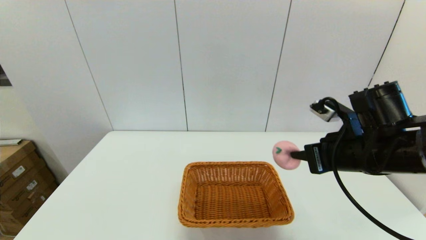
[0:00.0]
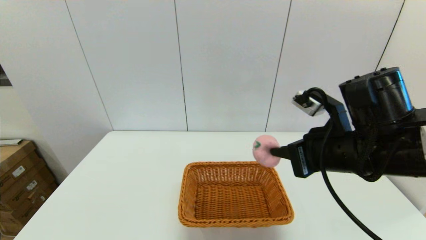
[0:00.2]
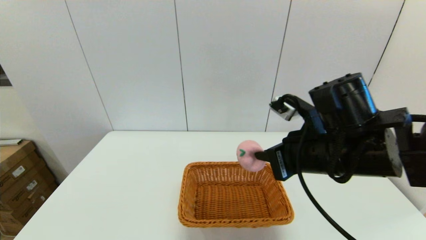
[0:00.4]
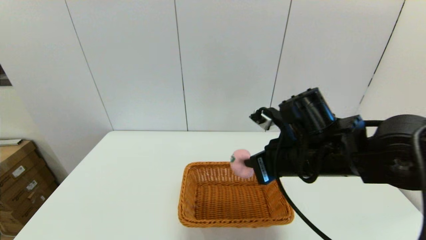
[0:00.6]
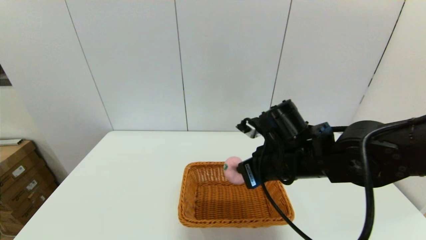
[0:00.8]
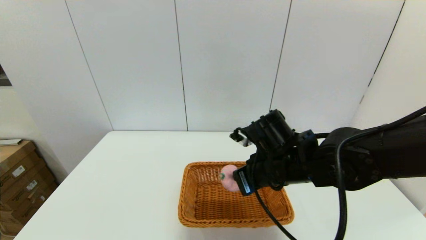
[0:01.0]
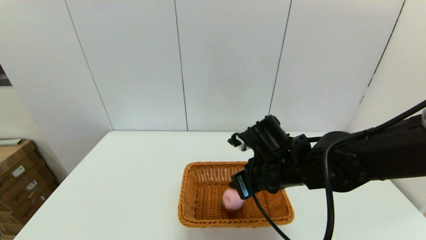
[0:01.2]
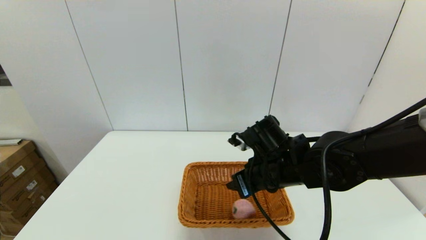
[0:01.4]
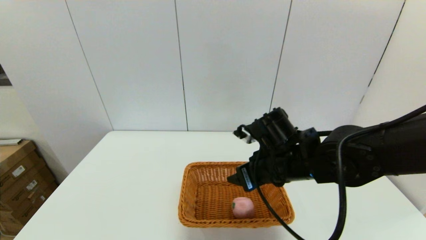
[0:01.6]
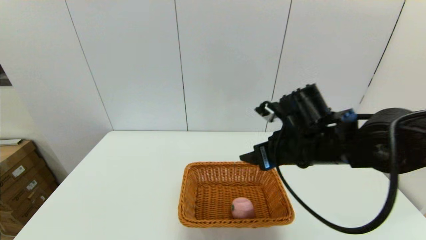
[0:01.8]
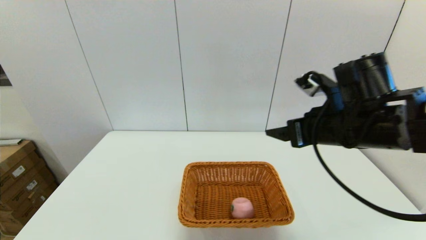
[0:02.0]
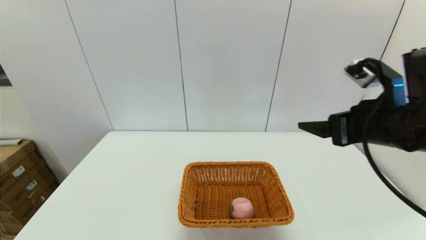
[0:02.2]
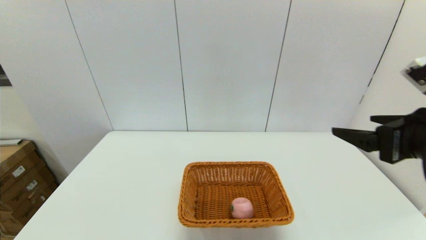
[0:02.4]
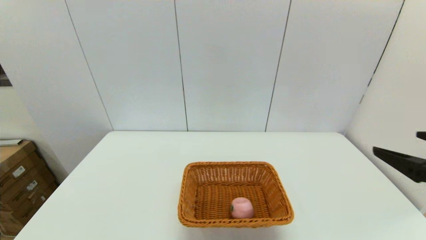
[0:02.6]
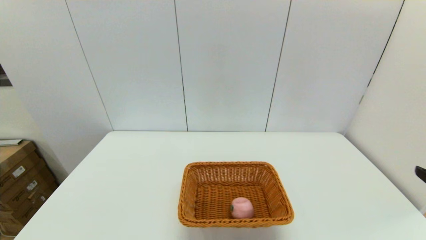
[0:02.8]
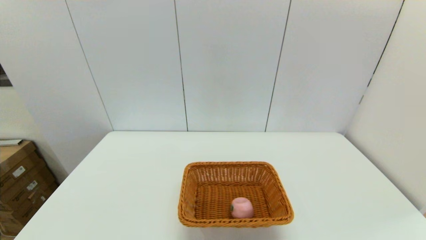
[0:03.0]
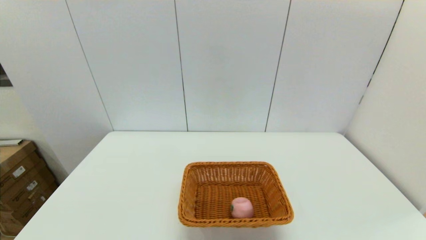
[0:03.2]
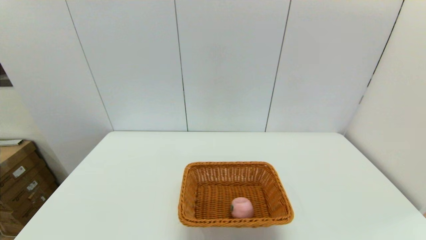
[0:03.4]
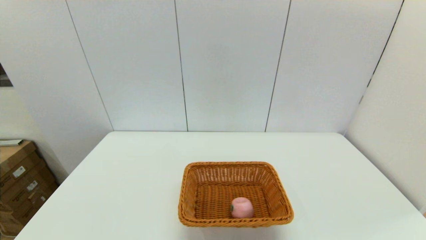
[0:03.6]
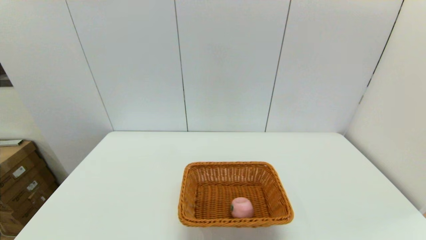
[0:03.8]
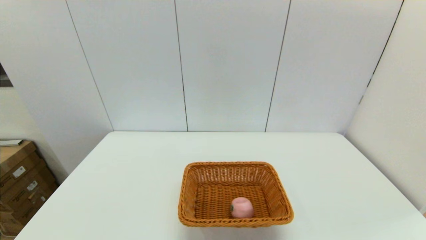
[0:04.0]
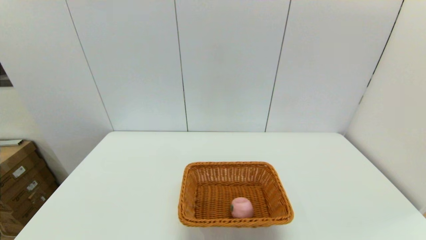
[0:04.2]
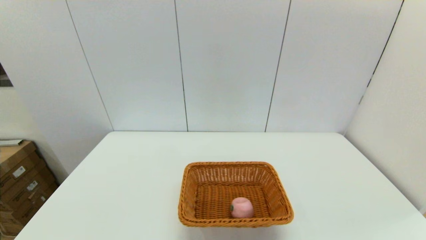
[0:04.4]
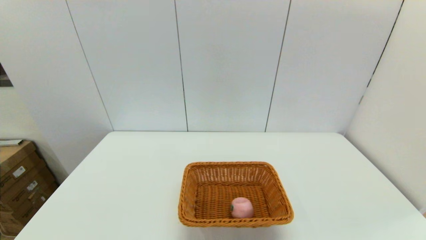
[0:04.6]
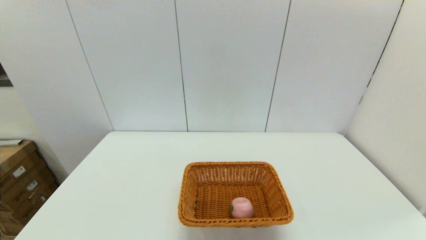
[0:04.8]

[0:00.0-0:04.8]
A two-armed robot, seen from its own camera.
Step, 0:00.0 to 0:01.2: Place the peach into the light basket with the right gripper.
0:00.0 to 0:01.6: The right gripper heads to the left and downward, covering approximately 10 cm, and opens up.
0:01.6 to 0:03.2: The right gripper shifts about 35 cm backward and to the right.

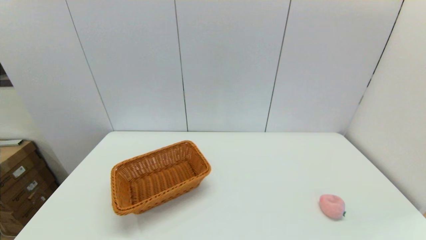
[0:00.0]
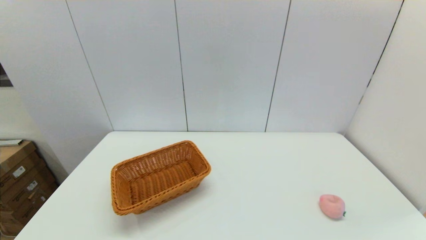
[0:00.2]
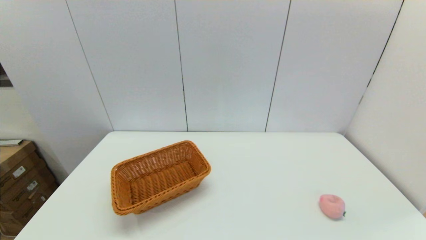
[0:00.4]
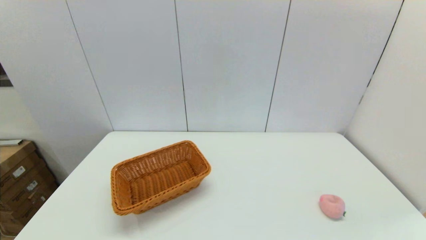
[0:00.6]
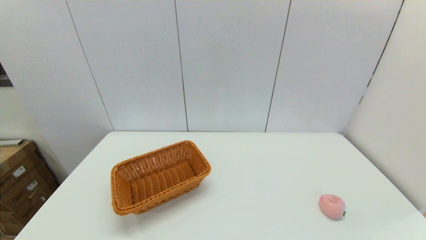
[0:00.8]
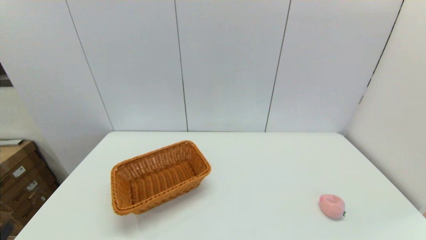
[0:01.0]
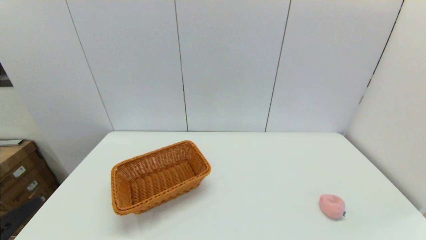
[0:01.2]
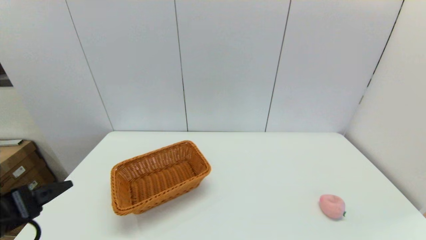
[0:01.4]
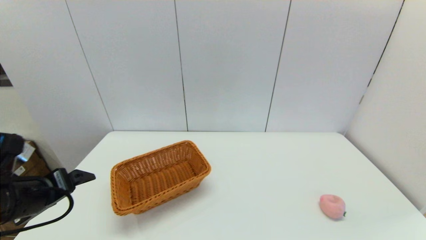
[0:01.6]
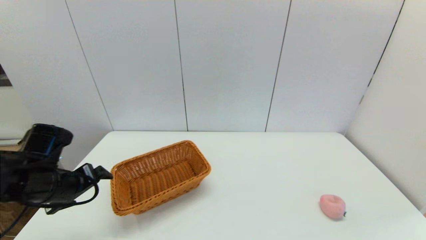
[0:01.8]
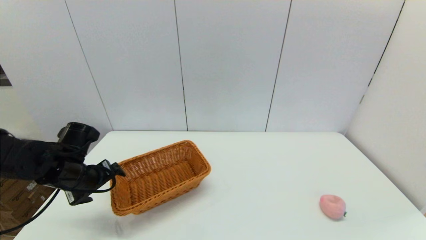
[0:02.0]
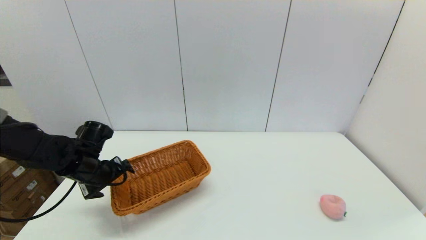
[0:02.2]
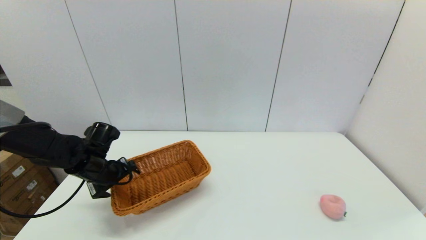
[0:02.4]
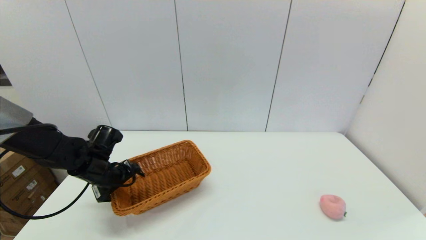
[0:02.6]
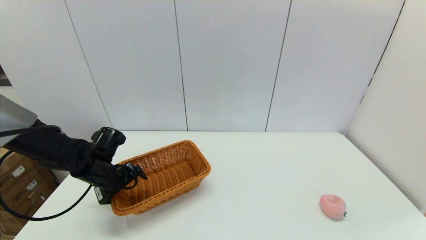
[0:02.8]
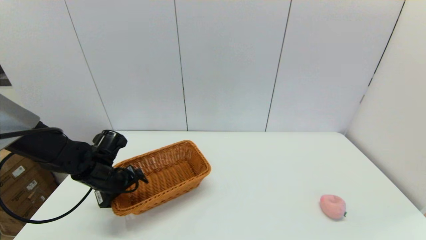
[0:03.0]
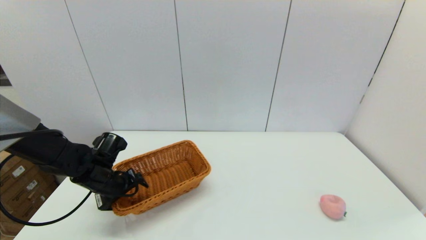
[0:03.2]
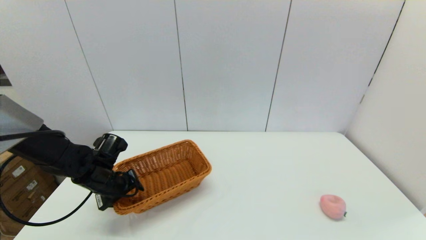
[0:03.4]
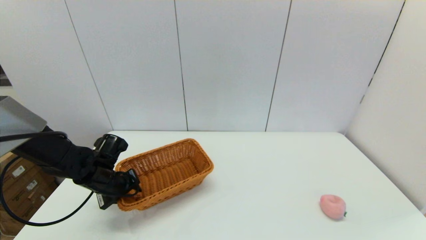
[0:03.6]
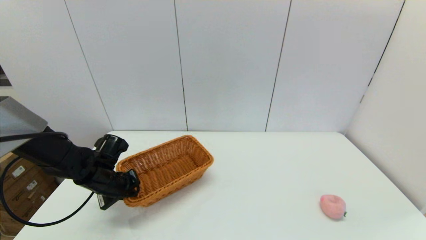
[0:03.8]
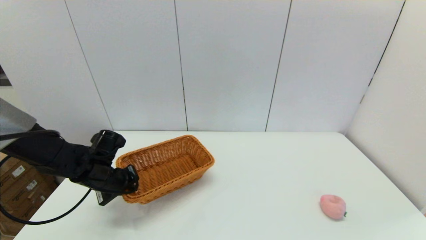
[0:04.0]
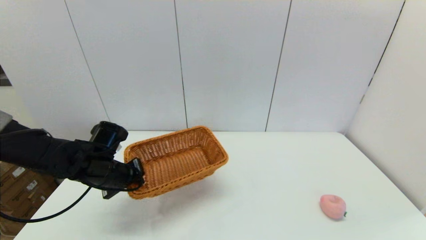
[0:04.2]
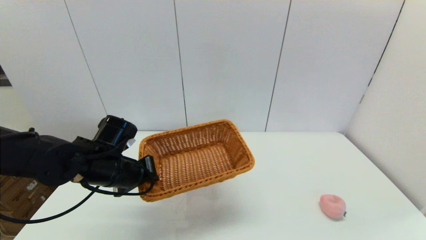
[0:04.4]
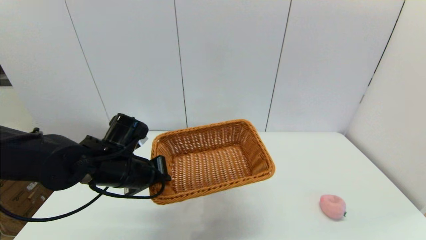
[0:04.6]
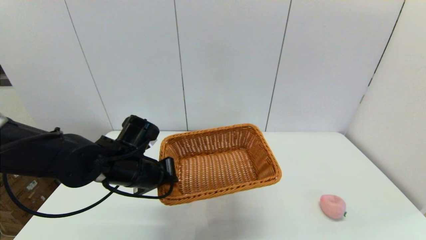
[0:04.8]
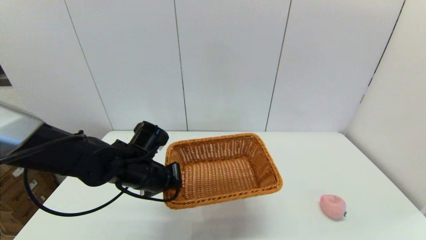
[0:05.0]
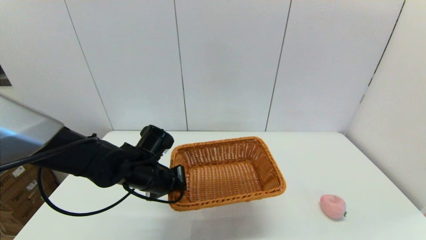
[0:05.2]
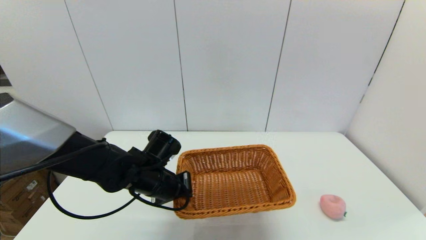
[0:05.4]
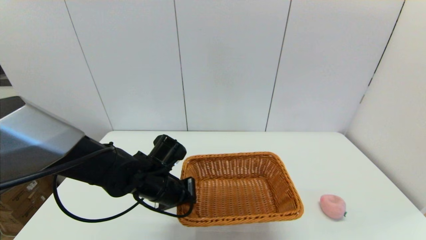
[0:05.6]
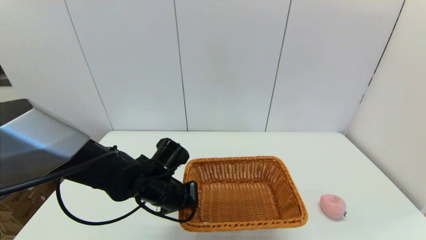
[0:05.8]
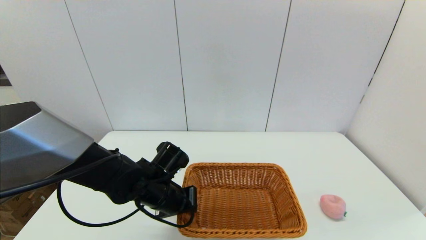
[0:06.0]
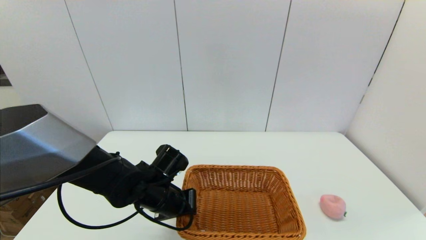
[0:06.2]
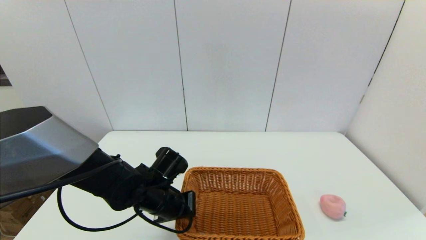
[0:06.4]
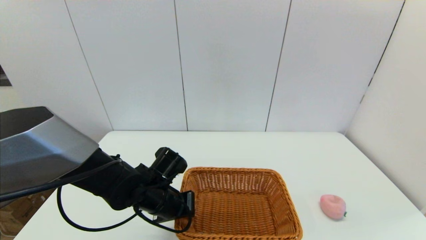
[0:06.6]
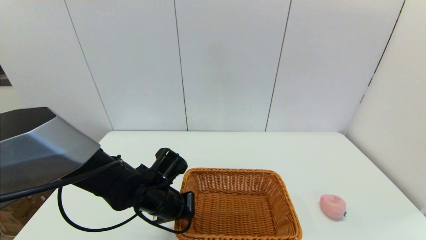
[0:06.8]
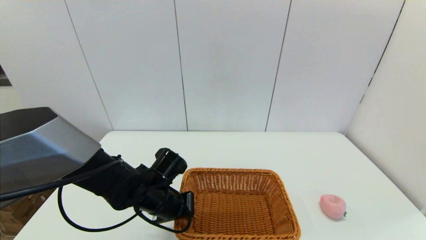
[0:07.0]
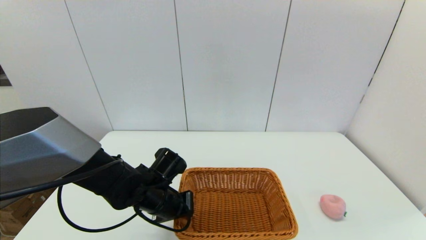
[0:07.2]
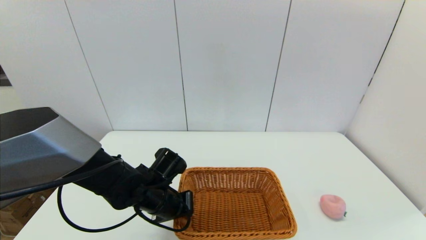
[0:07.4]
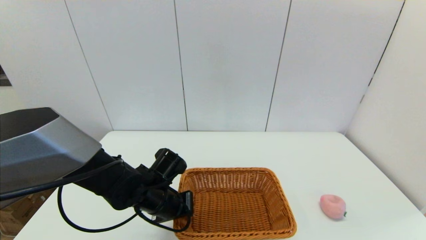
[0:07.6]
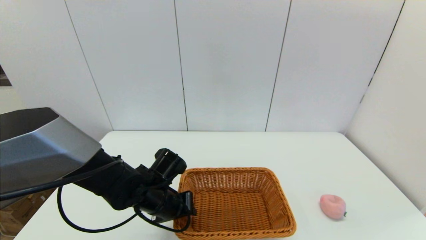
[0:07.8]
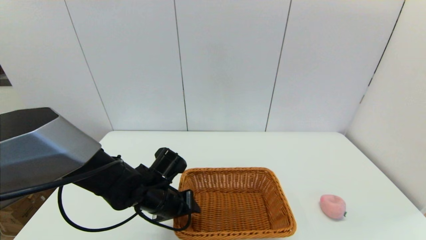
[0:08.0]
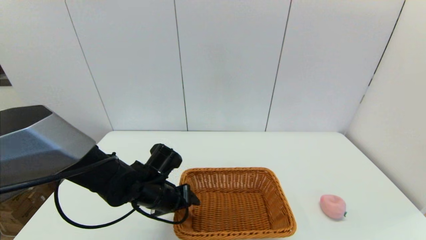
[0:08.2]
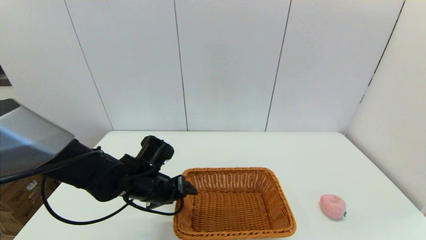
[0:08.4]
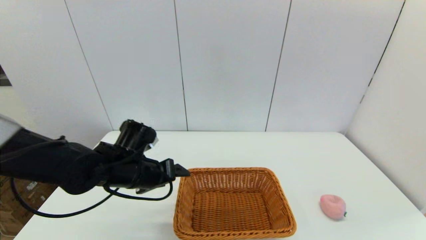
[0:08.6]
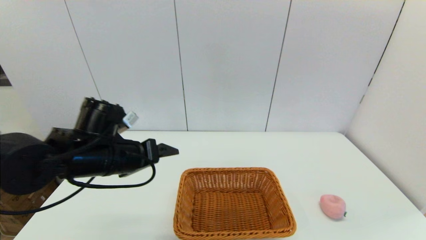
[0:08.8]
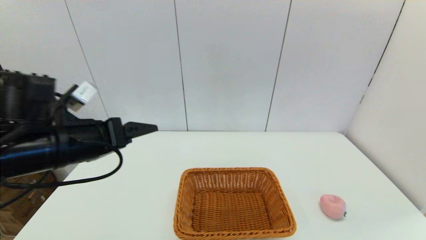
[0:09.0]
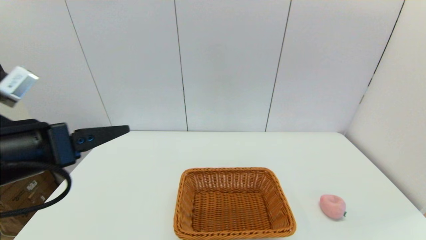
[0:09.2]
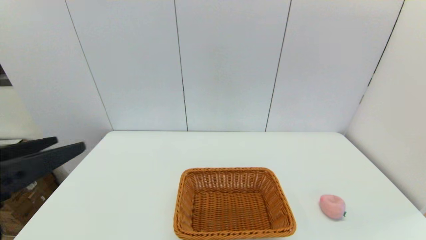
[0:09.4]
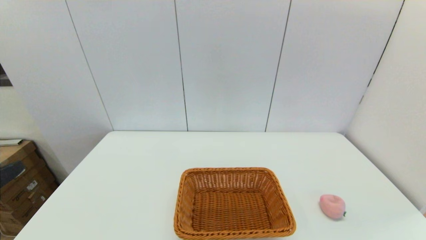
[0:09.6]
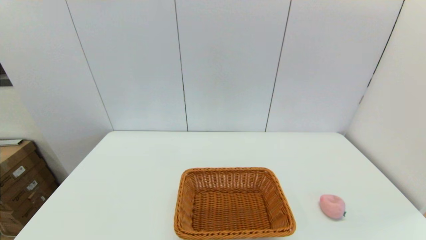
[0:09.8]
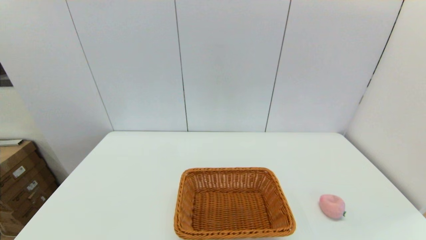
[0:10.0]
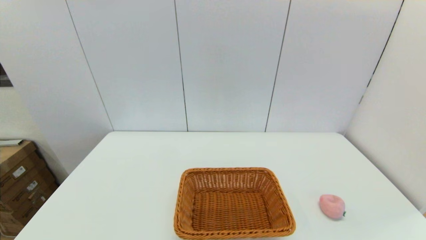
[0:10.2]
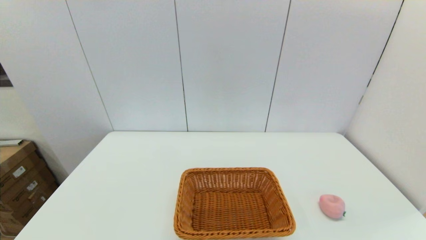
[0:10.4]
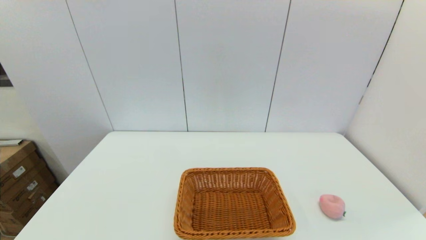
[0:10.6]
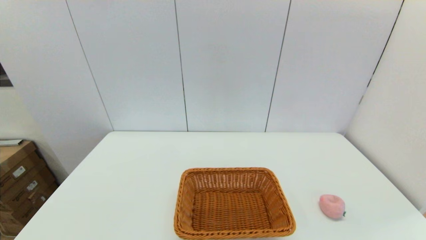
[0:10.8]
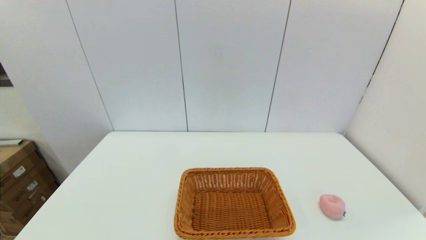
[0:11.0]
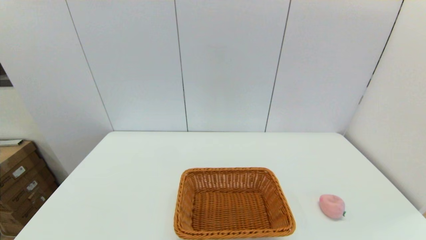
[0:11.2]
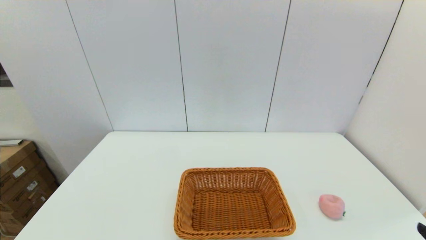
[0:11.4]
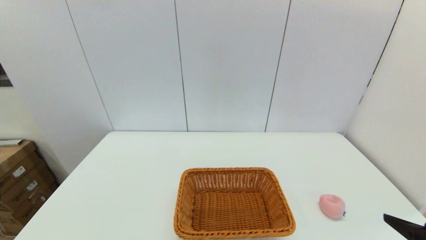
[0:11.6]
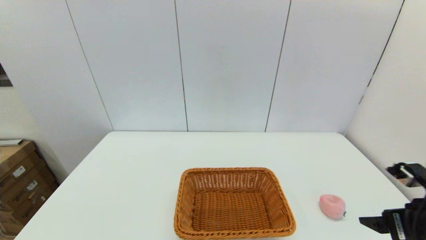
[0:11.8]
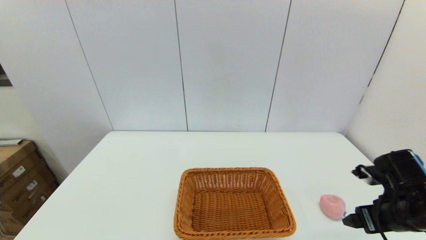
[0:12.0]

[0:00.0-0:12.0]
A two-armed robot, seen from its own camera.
Step, 0:00.0 to 0:03.8: Grasp the light basket with the left gripper.
Step, 0:04.0 to 0:07.8: Place the light basket on the middle of the table with the left gripper.
0:00.0 to 0:01.6: The left gripper goes some 20 cm forward.
0:01.6 to 0:03.0: The left gripper heads forward and downward, covering about 15 cm.
0:03.0 to 0:04.4: The left gripper is displaced upward and to the right by some 10 cm, and closes its fingers.
0:04.4 to 0:06.0: The left gripper travels to the right and downward by about 10 cm.
0:06.0 to 0:07.6: The grippers make only small movements.
0:07.6 to 0:09.0: The left gripper is displaced upward and to the left by approximately 20 cm, and opens its fingers.
0:09.0 to 0:10.4: The left gripper moves backward, some 25 cm.
0:10.4 to 0:12.0: The right gripper travels forward by approximately 25 cm.
